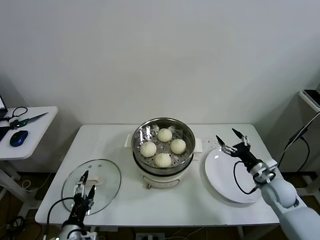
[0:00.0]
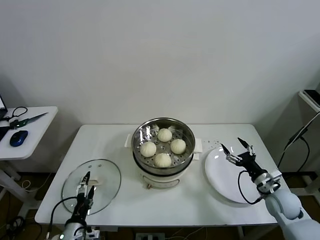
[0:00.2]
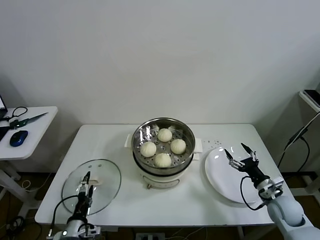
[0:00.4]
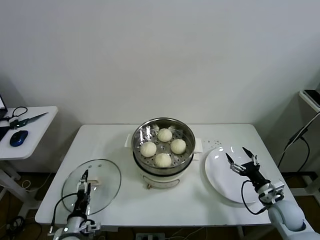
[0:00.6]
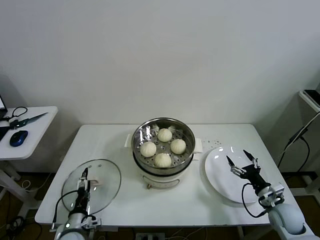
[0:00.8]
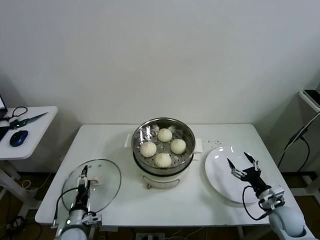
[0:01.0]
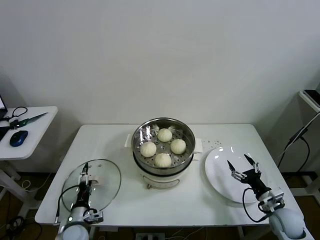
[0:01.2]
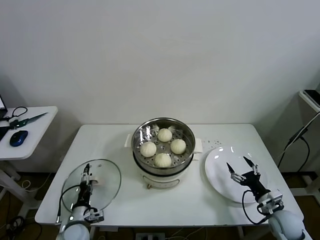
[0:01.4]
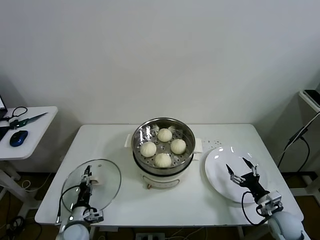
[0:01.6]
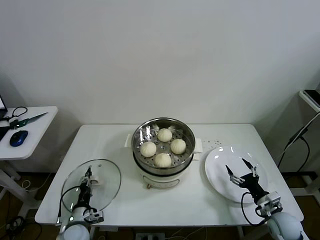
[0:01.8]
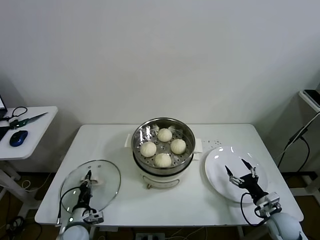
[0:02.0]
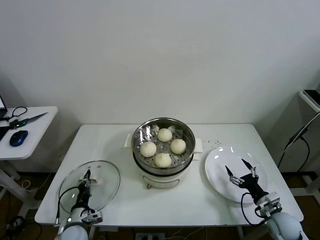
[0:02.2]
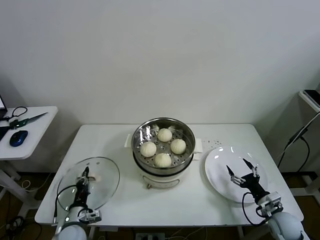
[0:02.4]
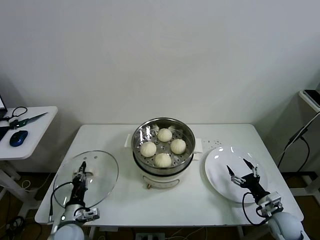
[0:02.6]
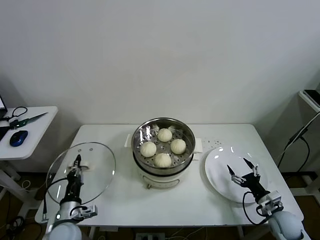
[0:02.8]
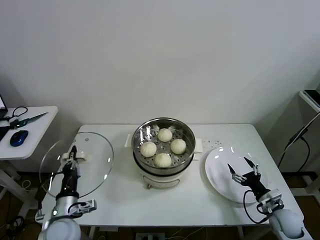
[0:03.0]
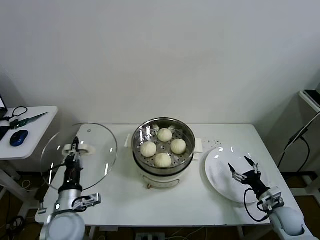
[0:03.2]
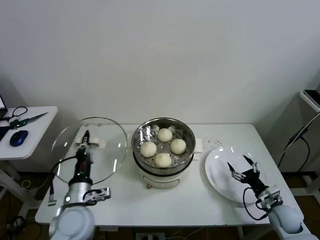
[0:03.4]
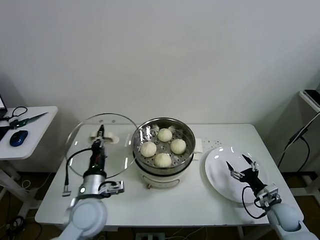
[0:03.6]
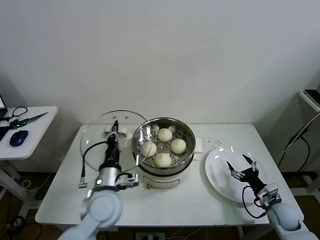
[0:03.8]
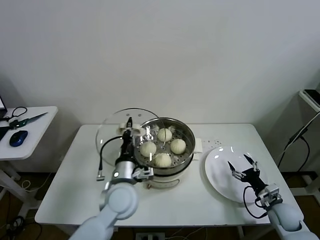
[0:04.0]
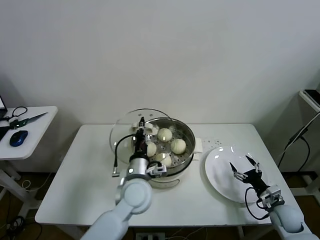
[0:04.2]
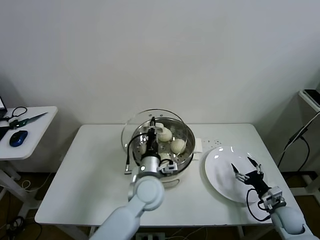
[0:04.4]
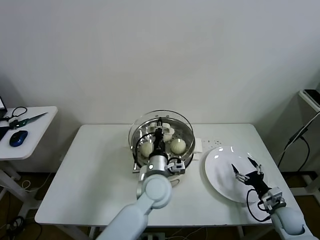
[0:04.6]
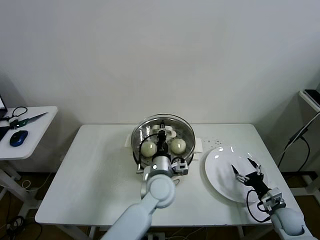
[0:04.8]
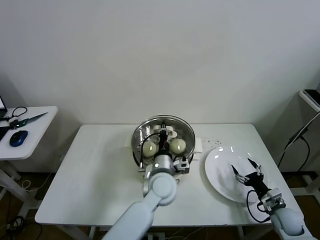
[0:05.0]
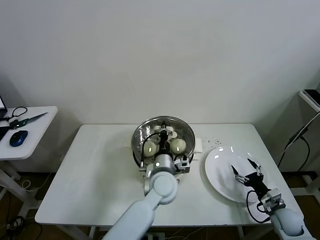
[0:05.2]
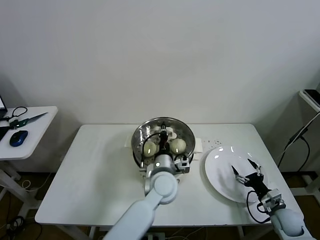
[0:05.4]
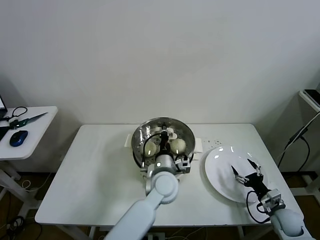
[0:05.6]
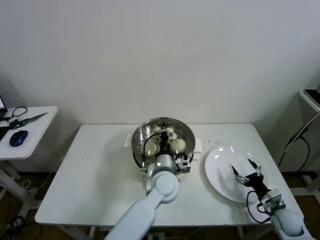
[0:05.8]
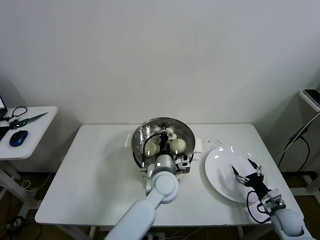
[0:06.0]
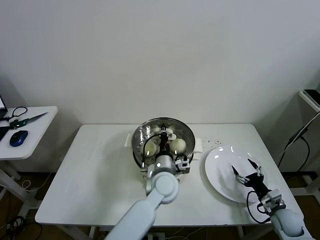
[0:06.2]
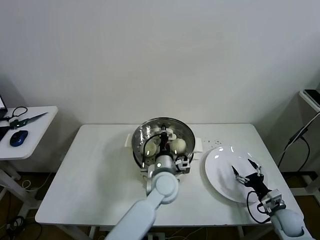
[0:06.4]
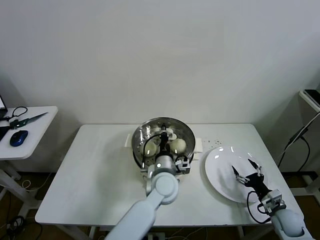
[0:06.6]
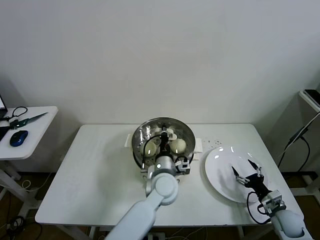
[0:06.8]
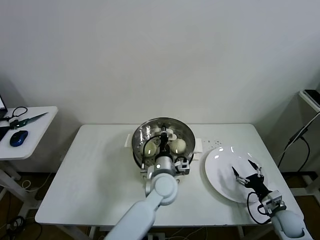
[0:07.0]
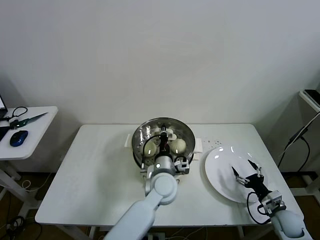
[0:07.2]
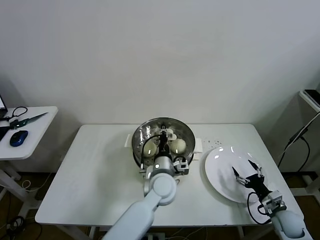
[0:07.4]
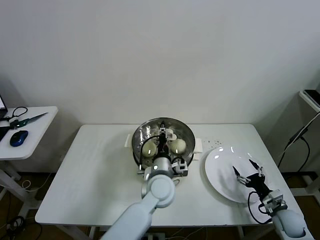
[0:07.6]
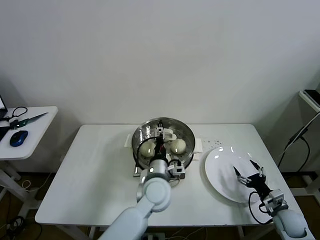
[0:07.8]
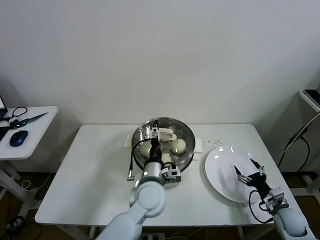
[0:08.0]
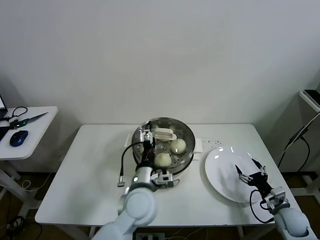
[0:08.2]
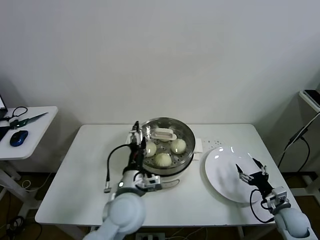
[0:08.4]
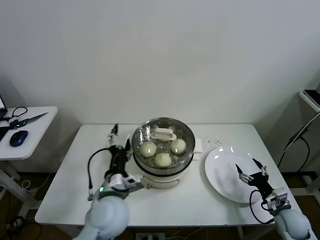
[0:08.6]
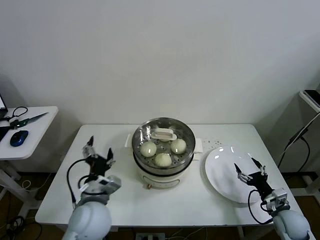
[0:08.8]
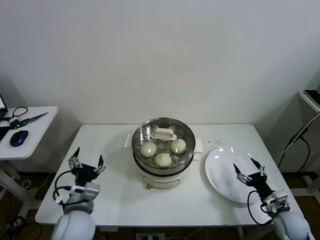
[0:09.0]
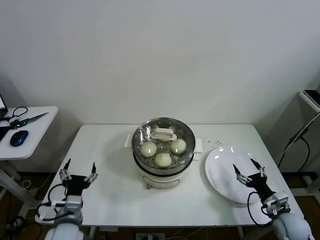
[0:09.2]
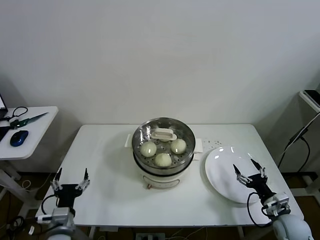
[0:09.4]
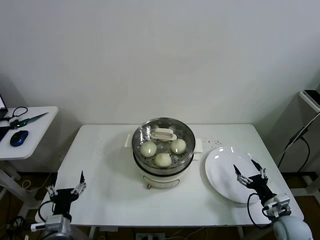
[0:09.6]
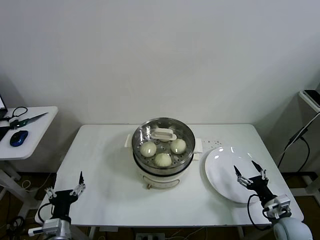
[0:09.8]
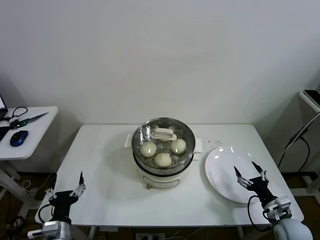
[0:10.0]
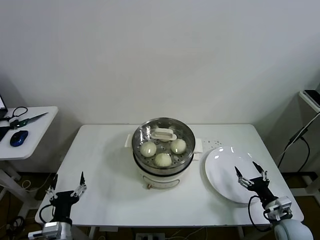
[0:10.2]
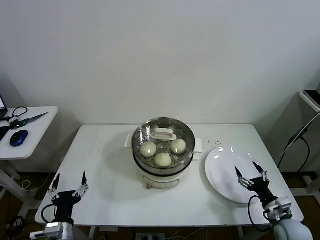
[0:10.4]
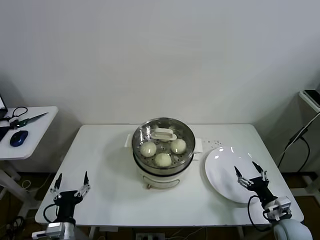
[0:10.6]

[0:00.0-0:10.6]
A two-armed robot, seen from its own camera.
Task of the whole recording: take steamed baozi put them in steamer then cover it.
Step, 0:02.2 to 0:07.4: Place the pot lid on the steamer with left gripper.
0:00.0 to 0:01.6: The right gripper moves downward and backward, some 10 cm. Meanwhile the left gripper goes about 15 cm downward and forward, and closes its fingers.
0:01.6 to 0:03.0: The left gripper goes some 10 cm upward, and closes up.
0:03.0 to 0:04.6: The left gripper travels to the right by approximately 25 cm.
0:04.6 to 0:06.0: The grippers move only a little.
0:06.0 to 0:07.6: The left gripper opens.
0:07.6 to 0:09.0: The left gripper heads to the left and backward, covering approximately 25 cm, and opens.
0:09.0 to 0:10.6: The left gripper moves downward, to the left and backward, approximately 15 cm.

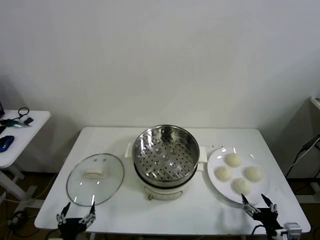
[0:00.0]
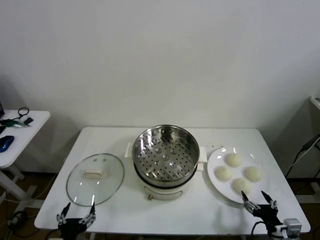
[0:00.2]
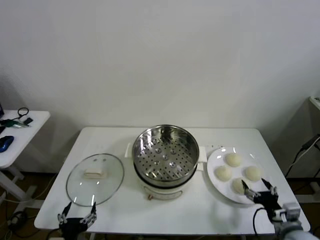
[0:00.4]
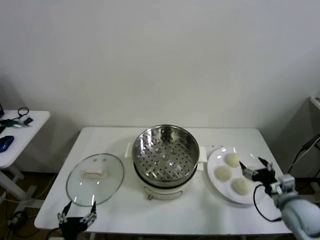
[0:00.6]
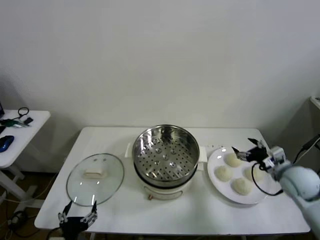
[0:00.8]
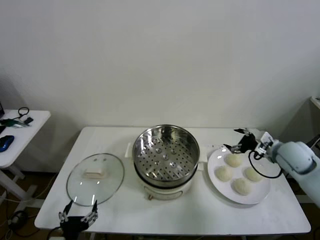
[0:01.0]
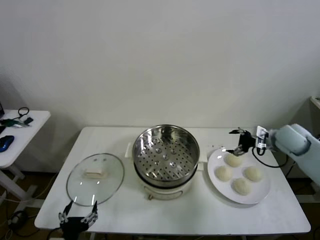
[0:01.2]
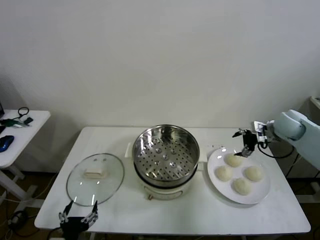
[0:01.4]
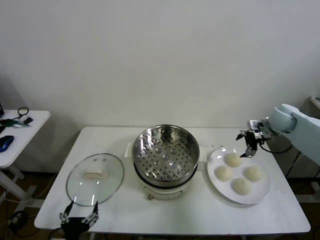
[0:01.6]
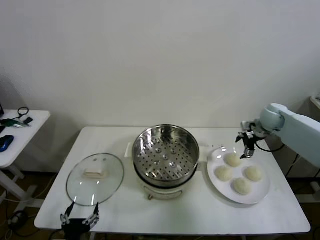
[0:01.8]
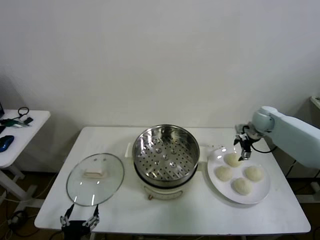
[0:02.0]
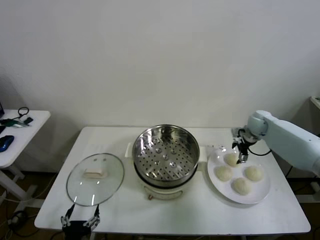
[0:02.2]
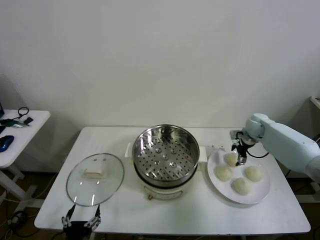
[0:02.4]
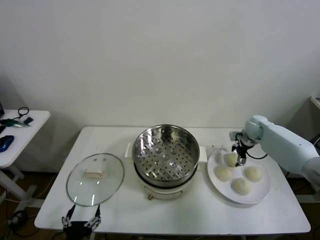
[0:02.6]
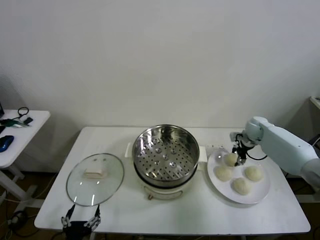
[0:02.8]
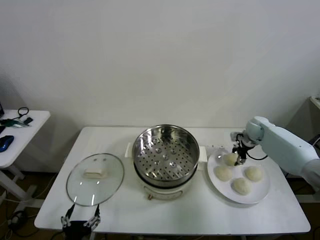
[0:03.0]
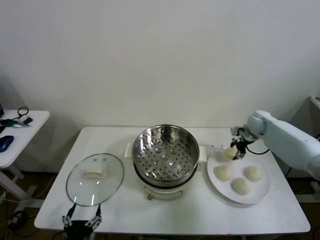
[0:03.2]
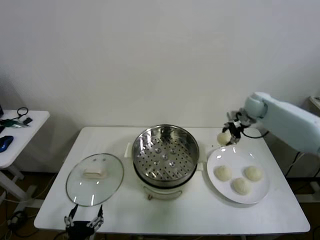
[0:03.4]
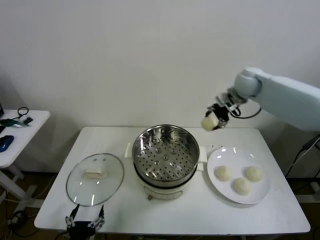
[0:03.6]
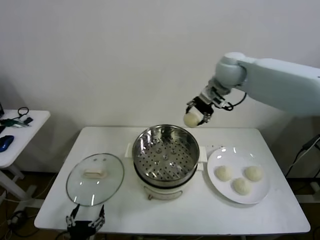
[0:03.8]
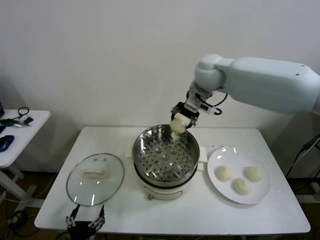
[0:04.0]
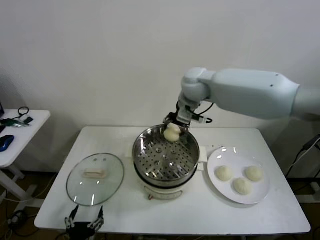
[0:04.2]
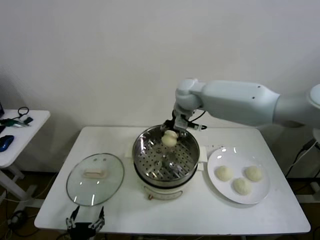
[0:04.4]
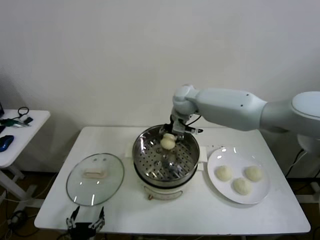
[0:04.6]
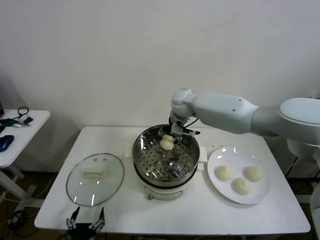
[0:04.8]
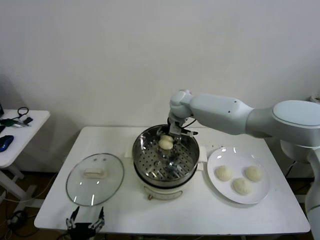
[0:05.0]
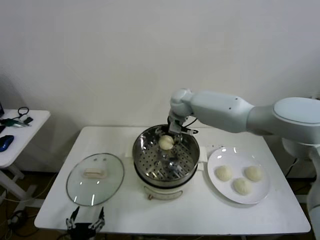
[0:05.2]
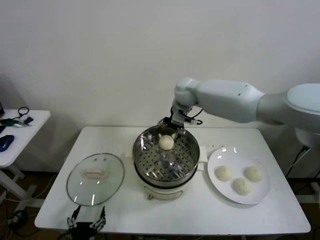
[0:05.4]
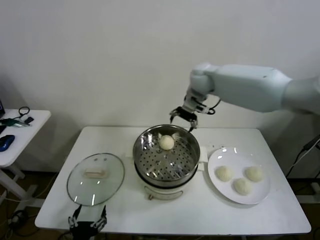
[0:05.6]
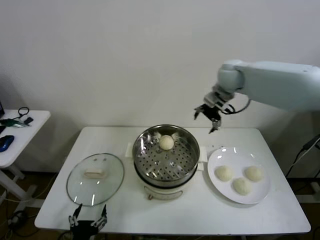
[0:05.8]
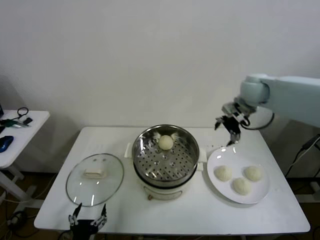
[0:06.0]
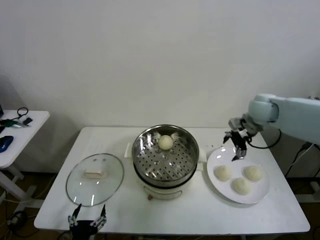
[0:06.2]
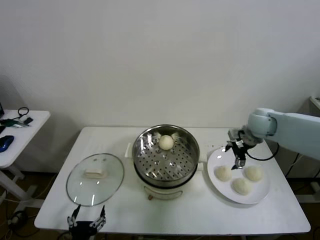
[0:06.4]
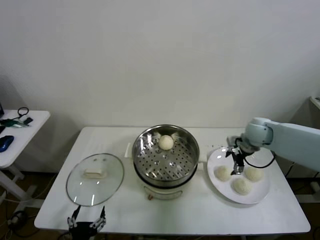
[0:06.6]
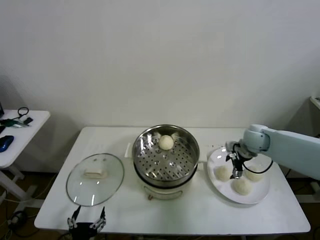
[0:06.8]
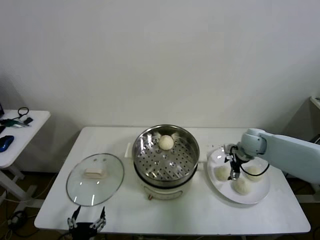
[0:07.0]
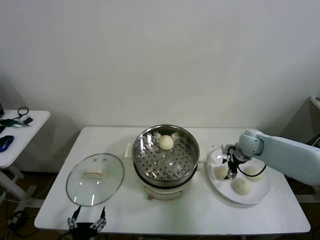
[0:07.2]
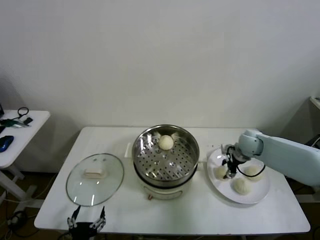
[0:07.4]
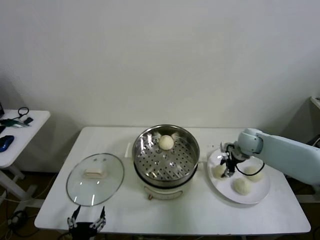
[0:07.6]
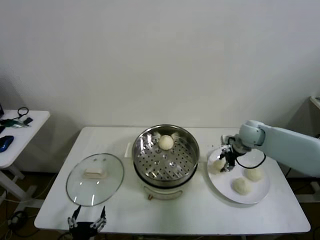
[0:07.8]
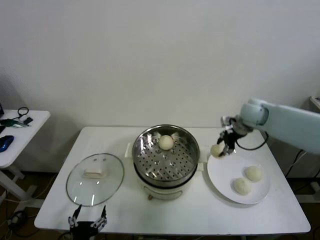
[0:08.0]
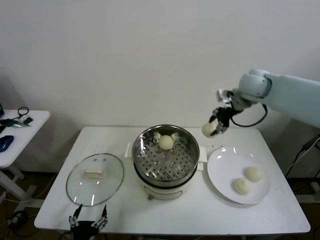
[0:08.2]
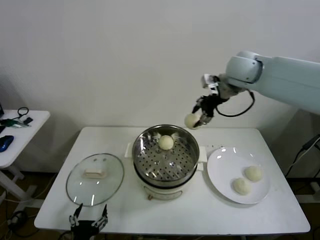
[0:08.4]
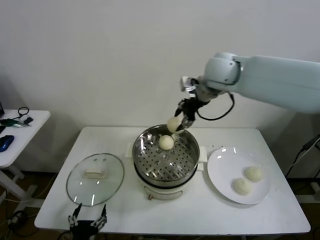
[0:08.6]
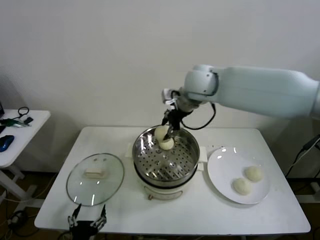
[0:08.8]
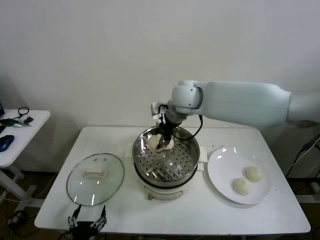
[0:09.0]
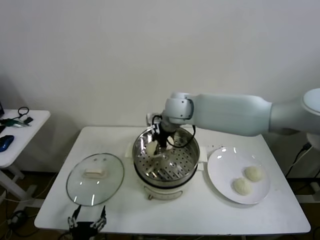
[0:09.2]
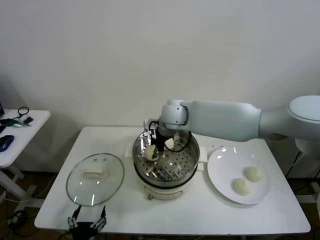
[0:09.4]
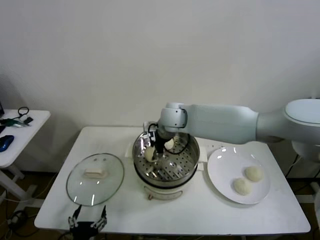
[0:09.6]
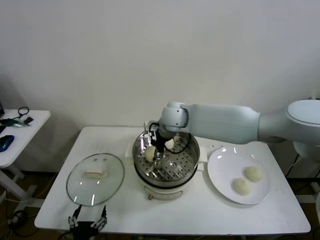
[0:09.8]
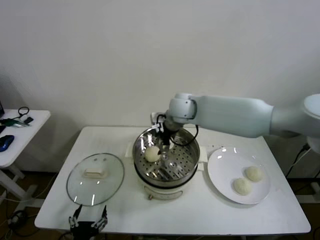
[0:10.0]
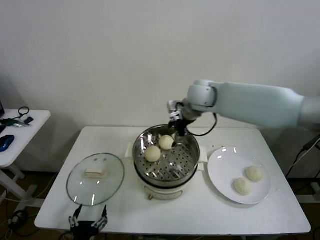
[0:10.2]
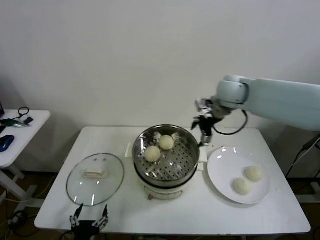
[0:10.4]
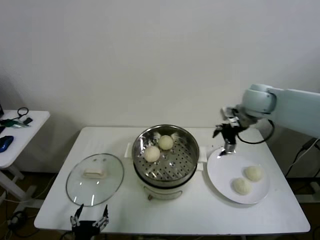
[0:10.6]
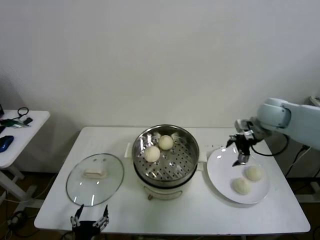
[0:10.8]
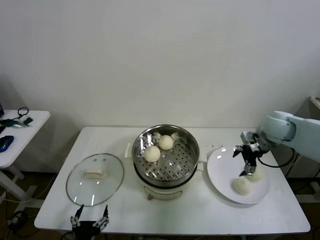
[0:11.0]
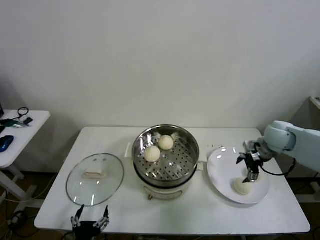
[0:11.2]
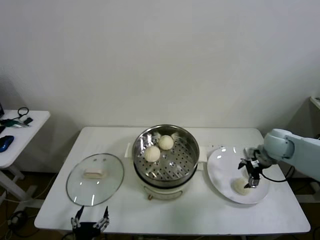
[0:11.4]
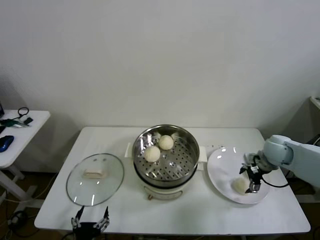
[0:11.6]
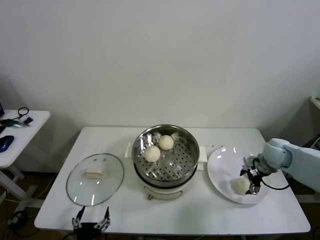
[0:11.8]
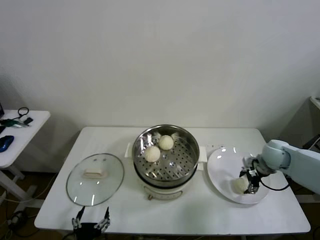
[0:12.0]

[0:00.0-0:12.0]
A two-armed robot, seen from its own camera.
Task of the whole recording: take steamed baozi put them in steamer then cover it.
Step, 0:00.0 to 0:03.0: Grasp the baozi in the plate with right gripper.
Step, 0:03.2 to 0:05.2: Place the baozi on the steamer with right gripper.
Step, 0:05.4 to 0:07.6: Grasp the baozi in the plate with right gripper.
Step, 0:07.8 to 0:09.8: Place the baozi on the steamer with right gripper.
0:01.6 to 0:03.0: The right gripper travels downward by some 10 cm, and closes its fingers.
0:03.0 to 0:04.4: The right gripper shifts approximately 35 cm to the left and upward.
0:04.4 to 0:06.0: The right gripper moves to the right, roughly 25 cm, and opens up.
0:06.0 to 0:07.6: The right gripper moves downward, about 15 cm, and closes.
0:07.6 to 0:09.0: The right gripper goes approximately 30 cm to the left and upward.
0:09.0 to 0:10.4: The right gripper moves to the right, about 20 cm, and opens.
0:10.4 to 0:12.0: The right gripper goes roughly 25 cm downward and to the right, and closes.
